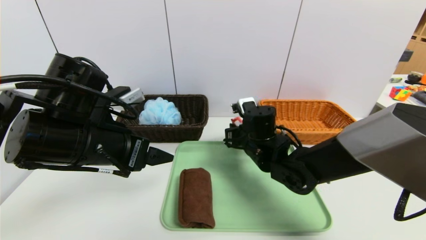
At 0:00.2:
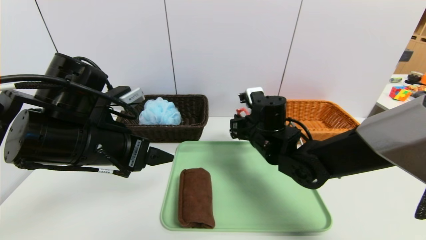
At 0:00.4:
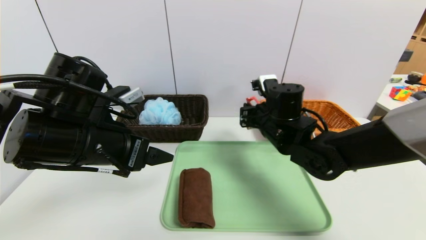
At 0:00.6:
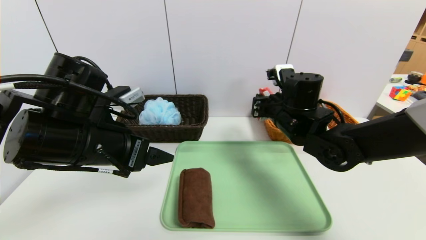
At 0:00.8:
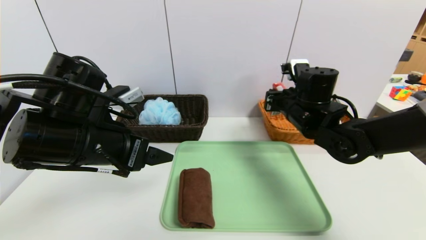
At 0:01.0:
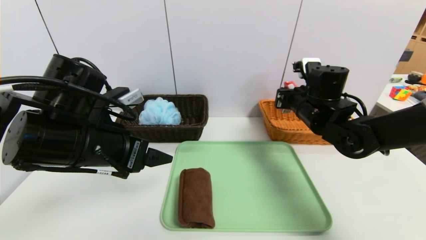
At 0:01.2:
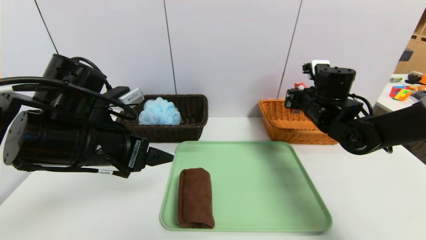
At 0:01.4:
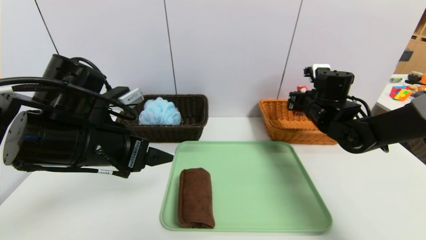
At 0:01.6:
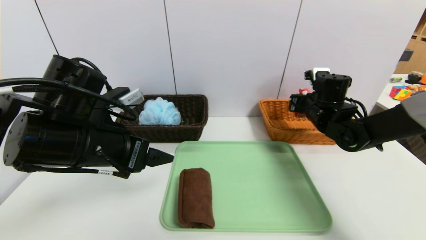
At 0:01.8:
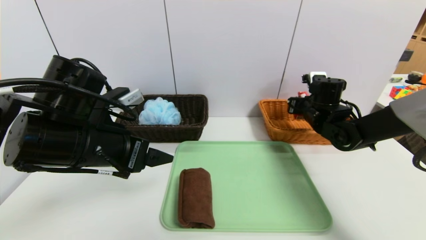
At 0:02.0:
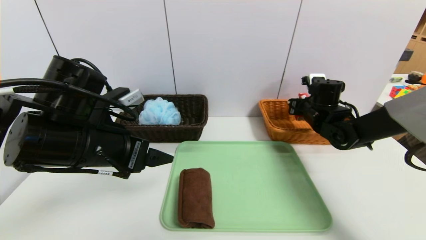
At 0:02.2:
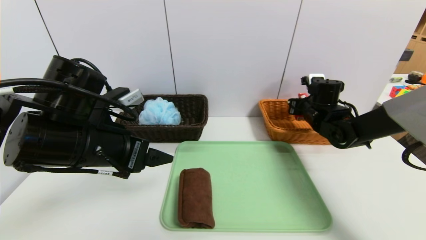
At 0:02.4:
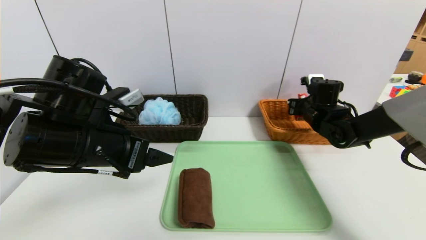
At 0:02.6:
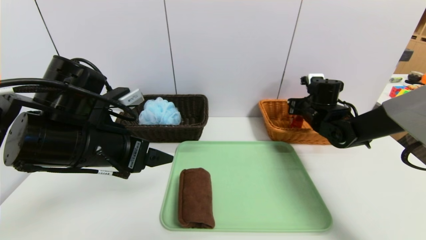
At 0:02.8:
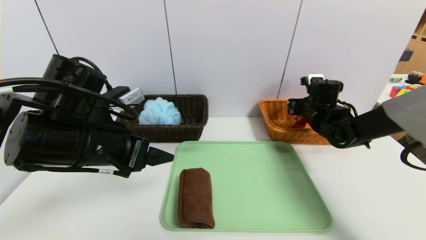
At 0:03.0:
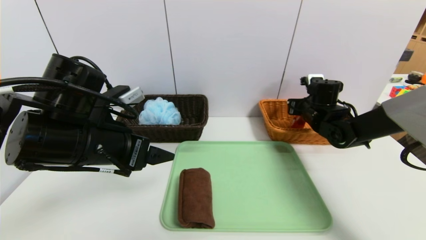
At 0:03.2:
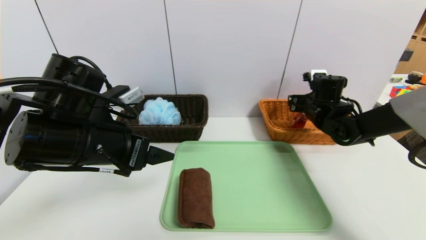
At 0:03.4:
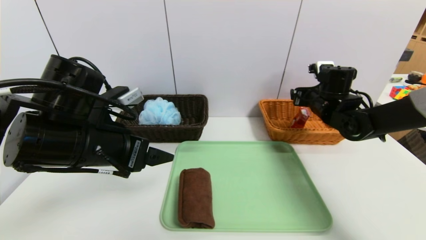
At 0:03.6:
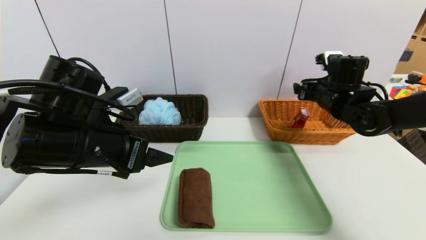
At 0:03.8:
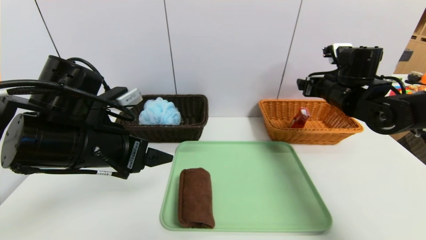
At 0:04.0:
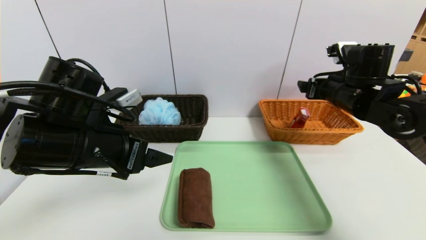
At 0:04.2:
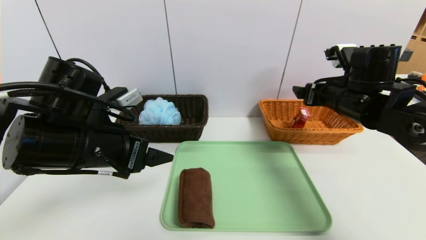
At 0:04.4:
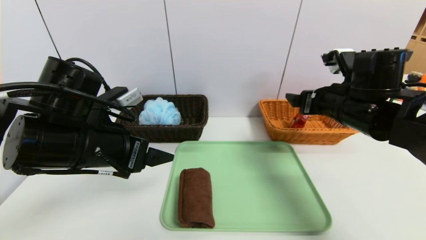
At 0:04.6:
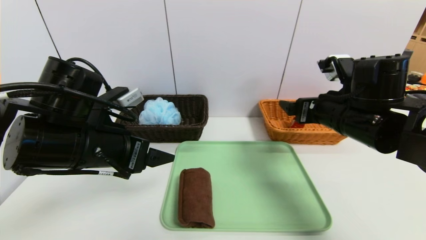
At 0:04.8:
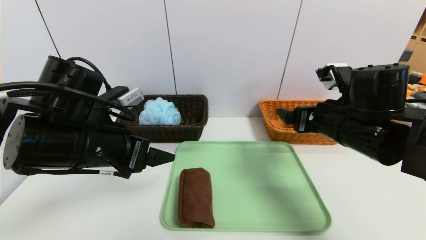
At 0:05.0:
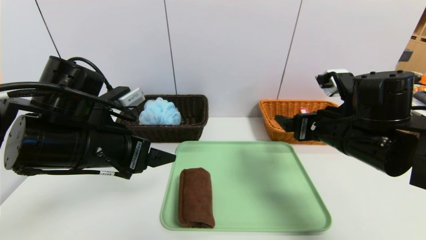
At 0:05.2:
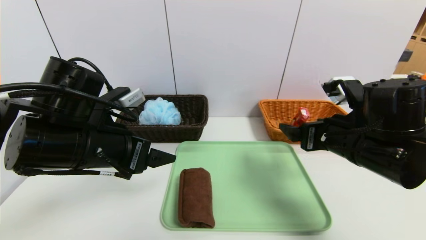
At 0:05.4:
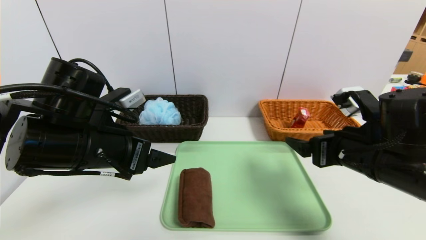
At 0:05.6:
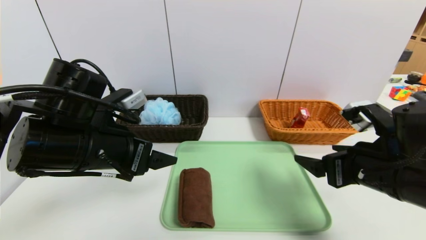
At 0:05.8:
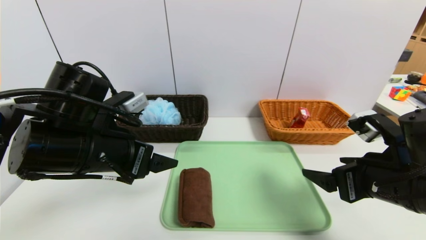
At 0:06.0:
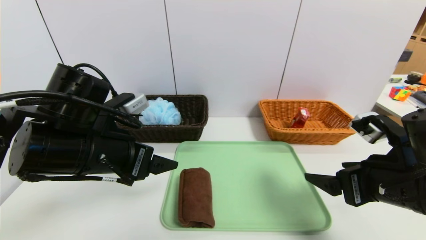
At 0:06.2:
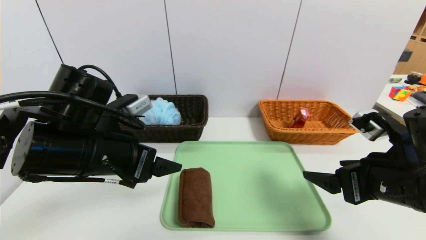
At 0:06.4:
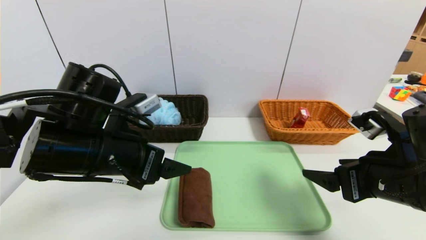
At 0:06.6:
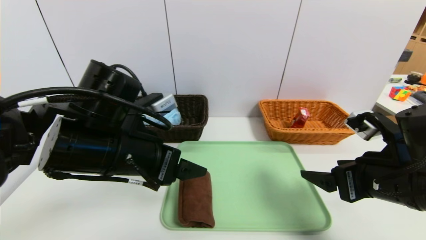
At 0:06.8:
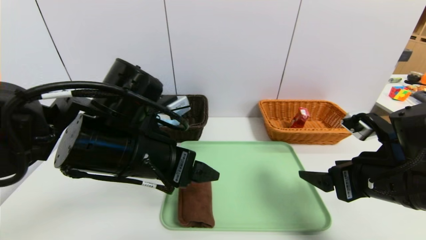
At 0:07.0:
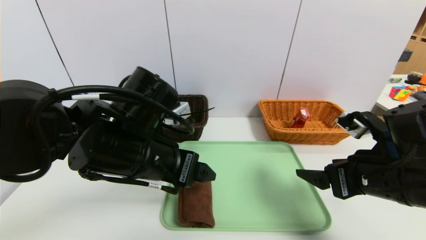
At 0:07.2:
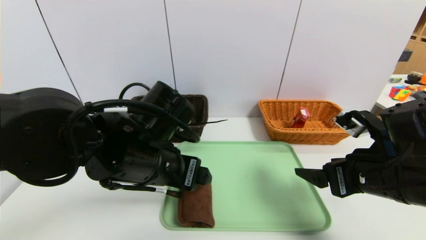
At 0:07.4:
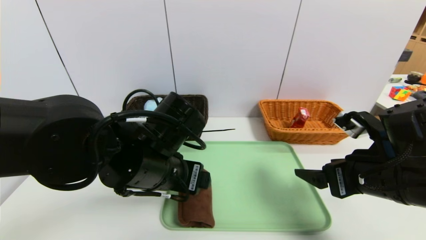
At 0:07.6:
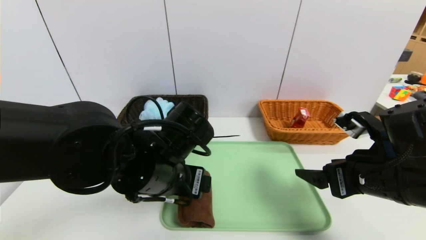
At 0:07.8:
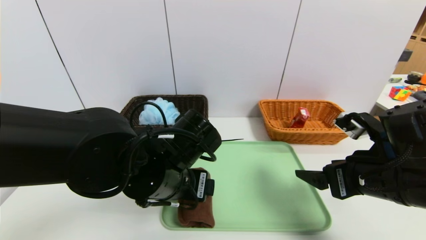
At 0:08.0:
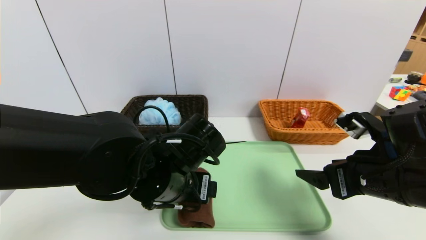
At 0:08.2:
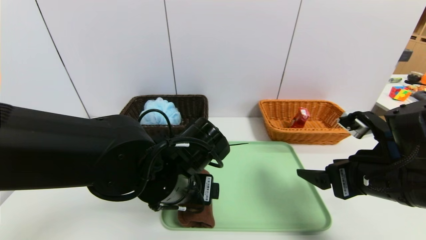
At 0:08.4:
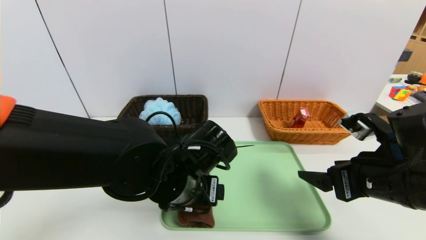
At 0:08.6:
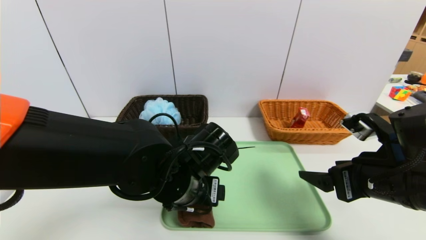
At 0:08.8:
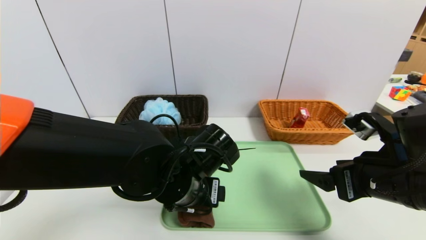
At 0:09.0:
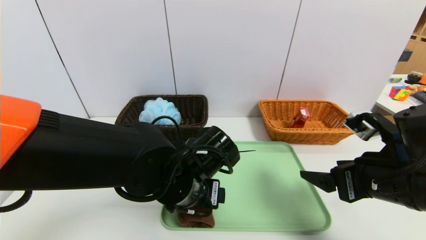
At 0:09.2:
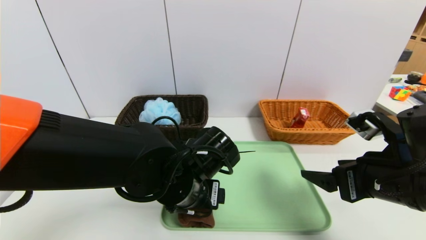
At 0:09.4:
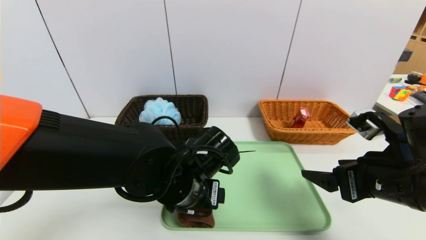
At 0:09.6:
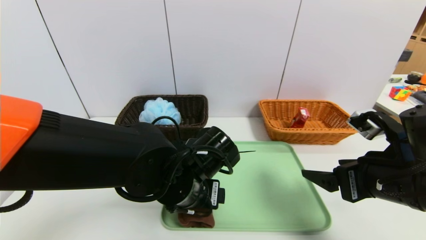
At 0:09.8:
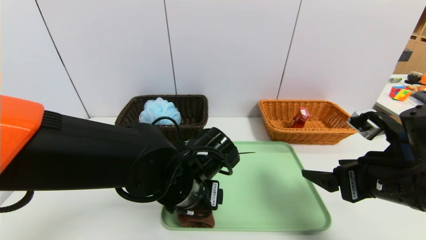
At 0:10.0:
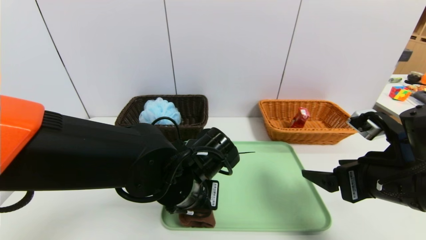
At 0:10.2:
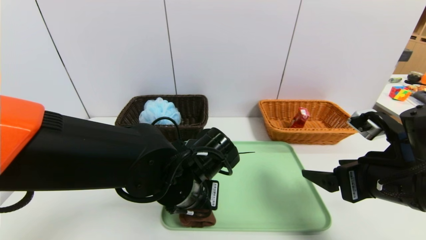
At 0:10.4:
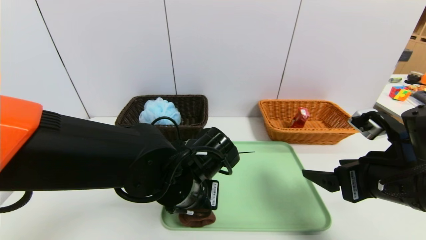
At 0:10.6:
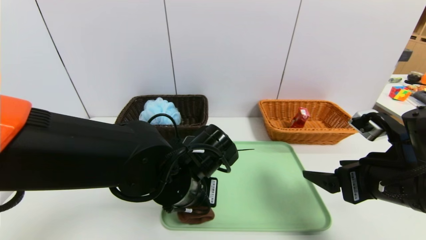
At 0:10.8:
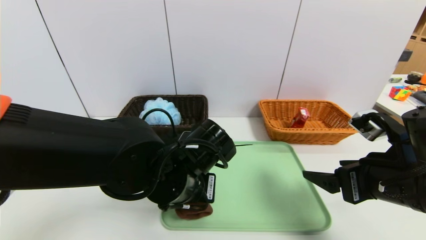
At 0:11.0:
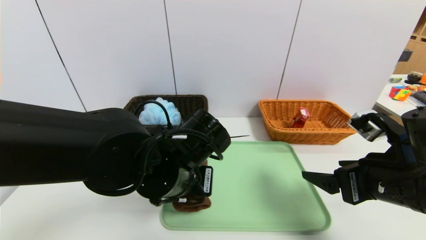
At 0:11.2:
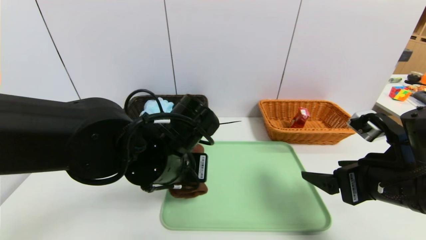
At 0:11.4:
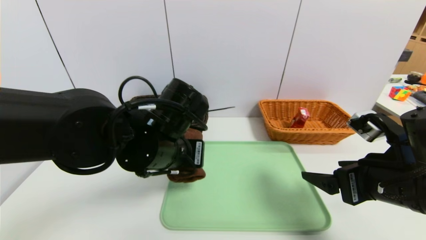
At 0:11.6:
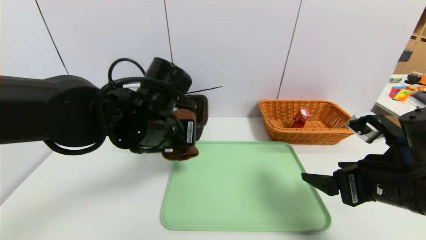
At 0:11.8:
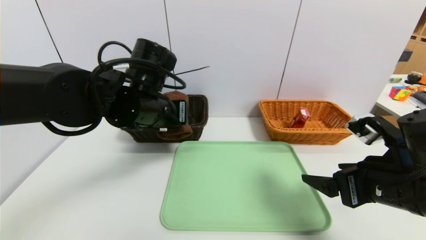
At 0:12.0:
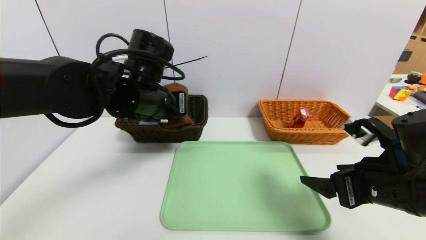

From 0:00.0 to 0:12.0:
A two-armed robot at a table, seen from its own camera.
Task of the whole recording: place the food in the right basket with the right gripper, and place the non food items in the left basket with the left gripper.
Step, from 0:00.0 to 0:02.6: Grasp the milk and put it in the right basket.
From 0:00.0 to 0:01.6: The right gripper moves to the right and forward, approximately 20 cm.
From 0:01.6 to 0:03.0: The right gripper opens up.
From 0:03.0 to 0:04.4: The right gripper travels backward and upward by some 15 cm.
From 0:04.4 to 0:06.0: The right gripper moves backward, approximately 10 cm.
From 0:06.0 to 0:07.6: The left gripper goes approximately 10 cm to the right.
From 0:07.6 to 0:09.0: The left gripper changes place by about 5 cm.
From 0:09.0 to 0:10.4: The left gripper closes.
From 0:10.4 to 0:12.0: The left gripper travels upward, forward and to the left by roughly 15 cm.

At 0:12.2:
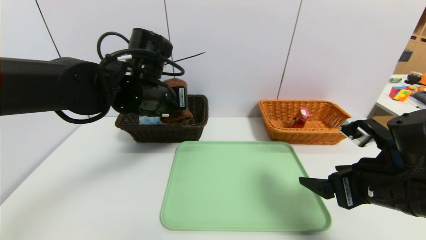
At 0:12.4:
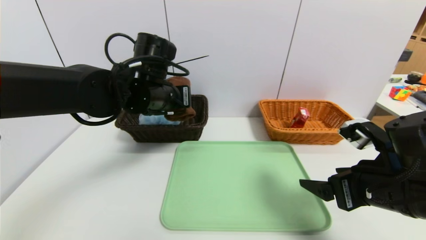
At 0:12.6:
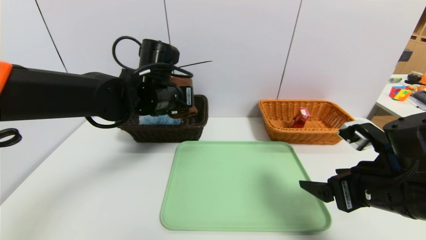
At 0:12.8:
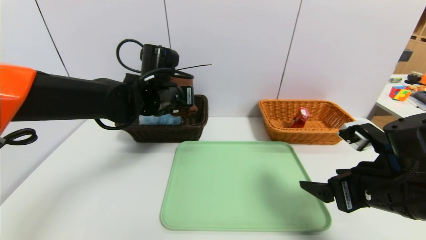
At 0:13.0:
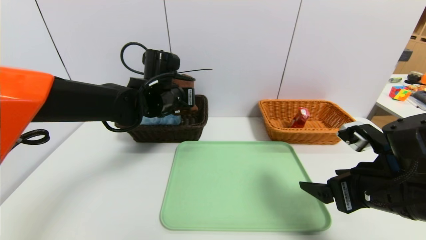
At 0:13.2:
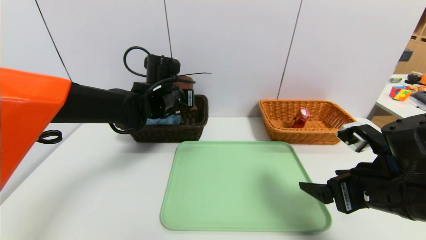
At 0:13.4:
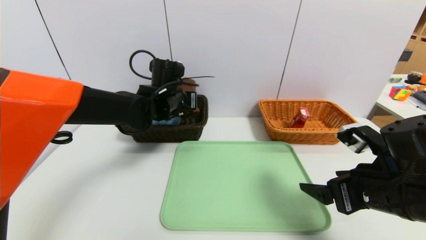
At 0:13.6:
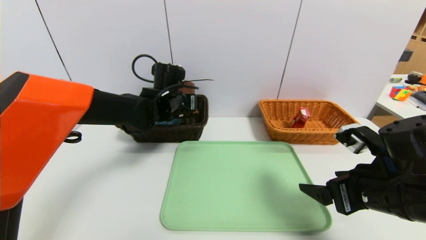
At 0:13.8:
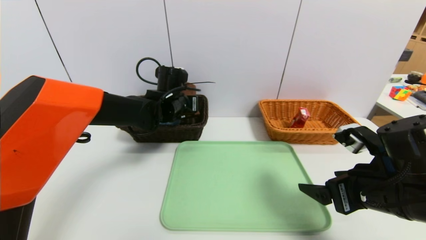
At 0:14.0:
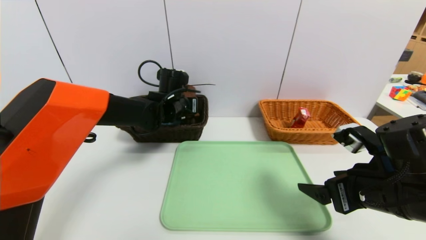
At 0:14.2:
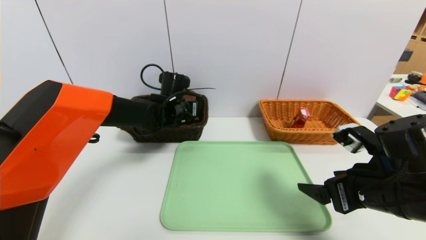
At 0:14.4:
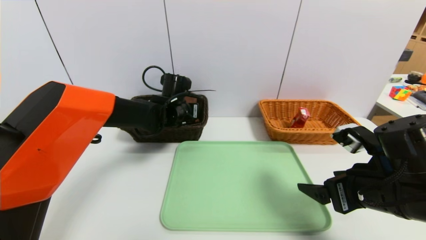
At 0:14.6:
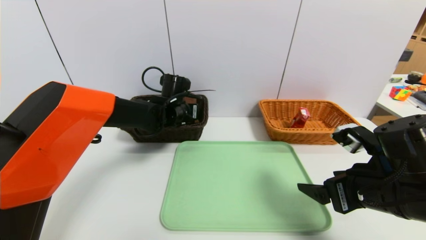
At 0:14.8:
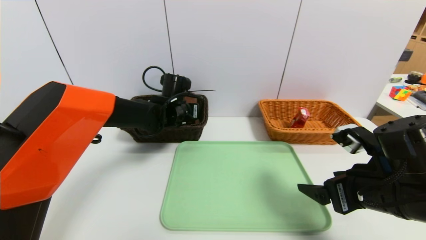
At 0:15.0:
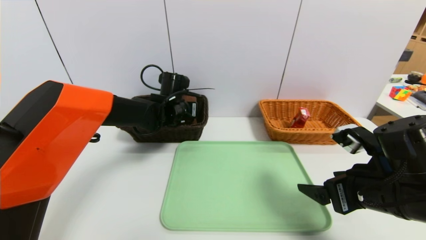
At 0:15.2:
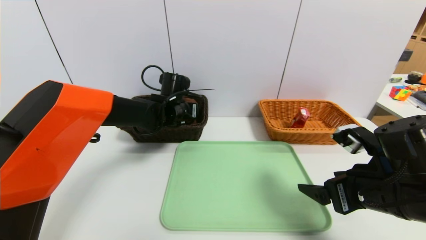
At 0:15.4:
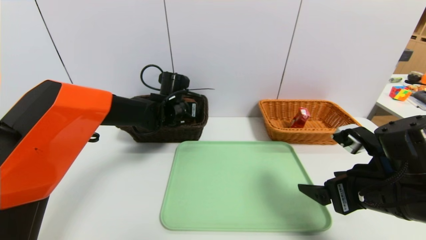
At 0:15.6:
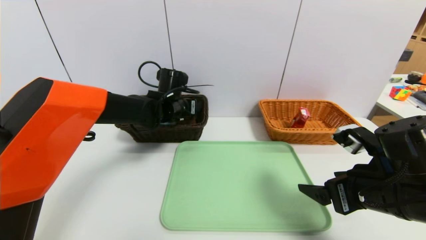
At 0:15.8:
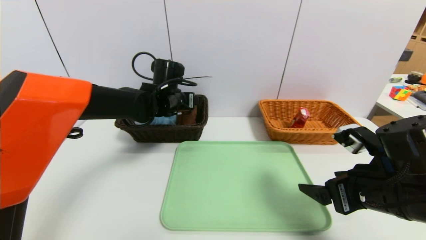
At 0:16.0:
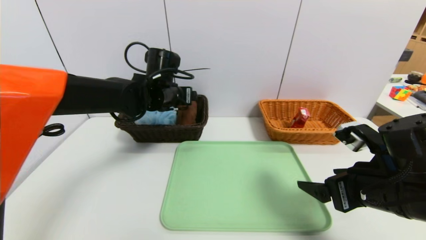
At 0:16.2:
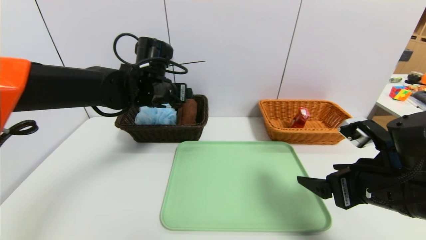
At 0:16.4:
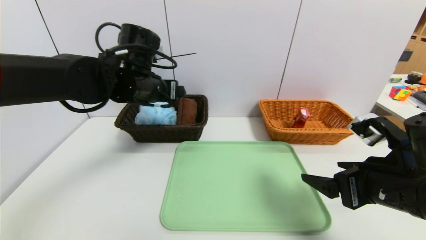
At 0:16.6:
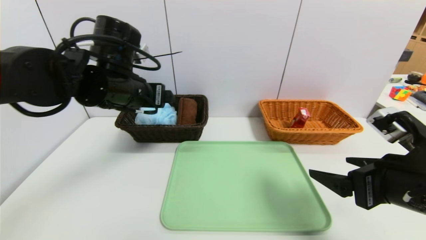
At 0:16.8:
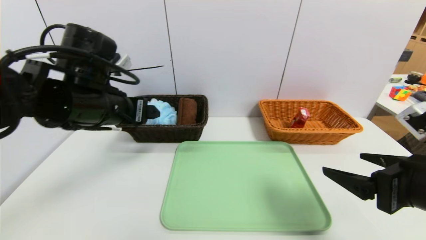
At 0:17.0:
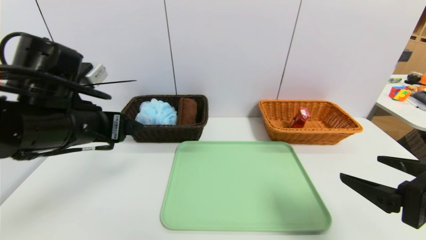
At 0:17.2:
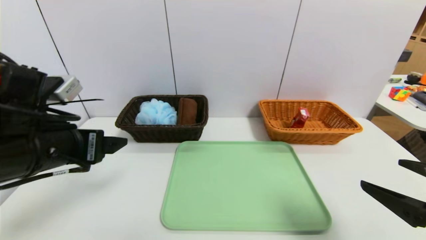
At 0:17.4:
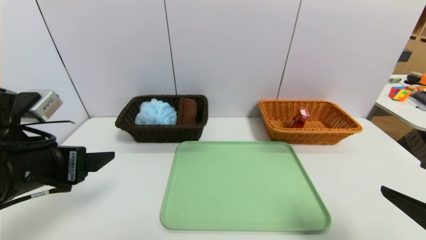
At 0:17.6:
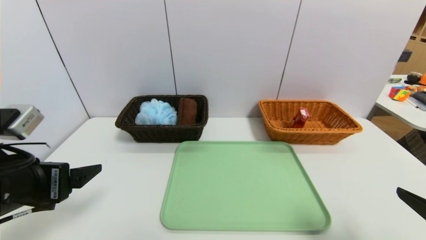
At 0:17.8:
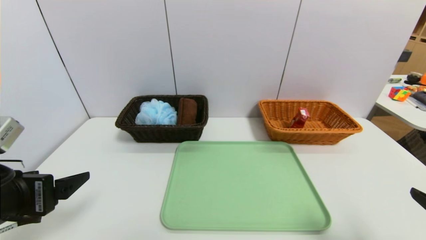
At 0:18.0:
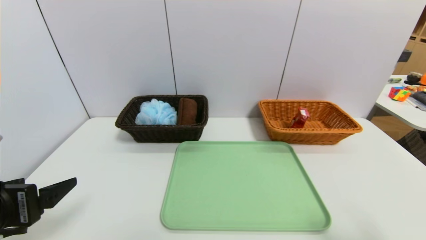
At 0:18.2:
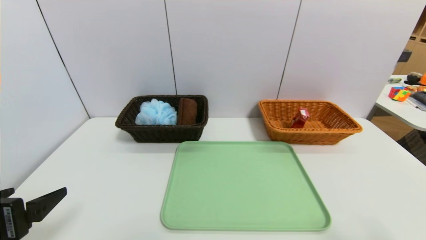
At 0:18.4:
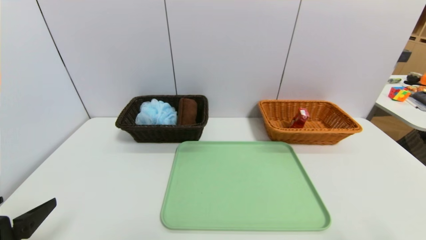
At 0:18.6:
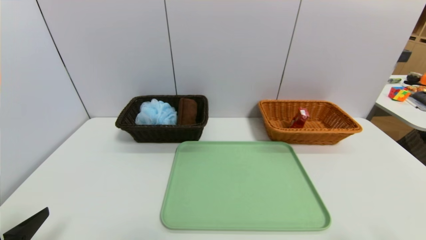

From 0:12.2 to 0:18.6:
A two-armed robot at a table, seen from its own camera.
Task of the whole recording: place the food in the right basket with the right gripper, and place the non food items in the left basket with the left gripper.
Step, from 0:12.2 to 0:15.8: Grasp the brown towel and put it in the left basket.
From 0:12.2 to 0:13.8: The left gripper shifts approximately 15 cm forward and downward.
From 0:13.8 to 0:15.4: The left gripper opens.
From 0:15.4 to 0:17.0: The right gripper shifts about 5 cm backward. The left gripper shifts approximately 25 cm backward, to the left and upward.
From 0:17.0 to 0:18.6: The right gripper heads backward and to the right, covering roughly 10 cm. The left gripper goes some 20 cm backward, to the left and downward.
